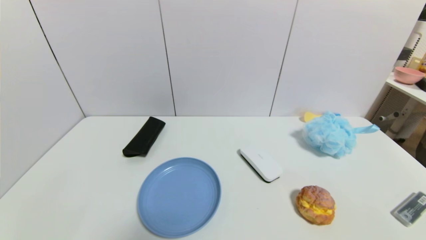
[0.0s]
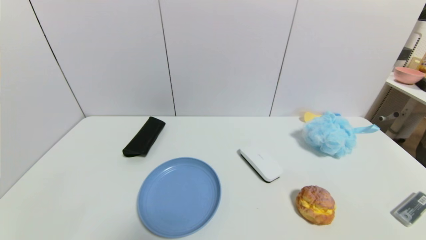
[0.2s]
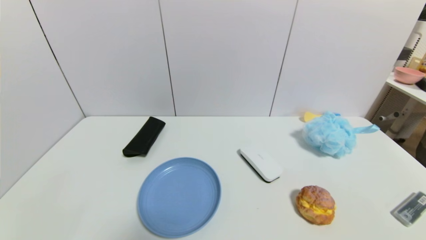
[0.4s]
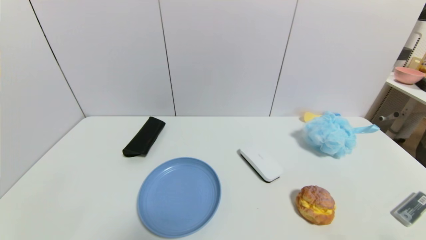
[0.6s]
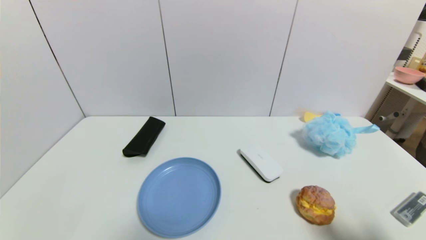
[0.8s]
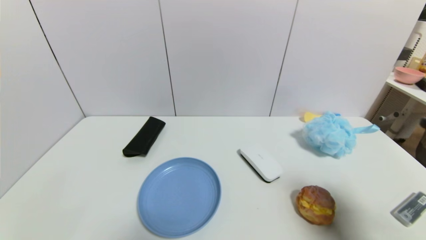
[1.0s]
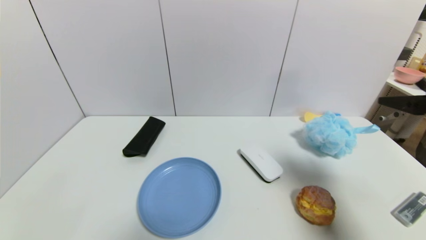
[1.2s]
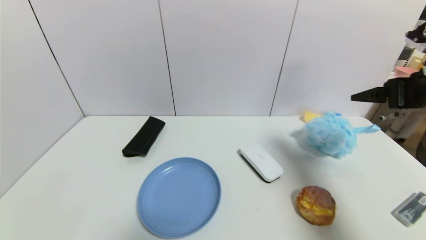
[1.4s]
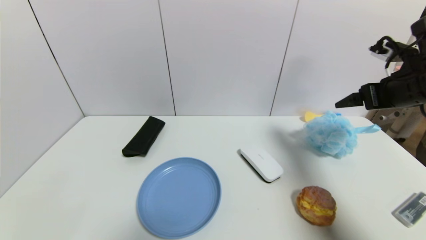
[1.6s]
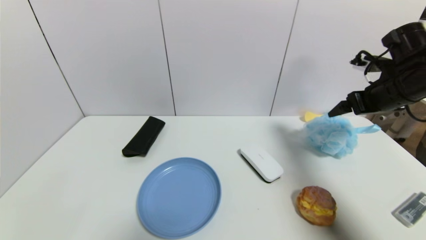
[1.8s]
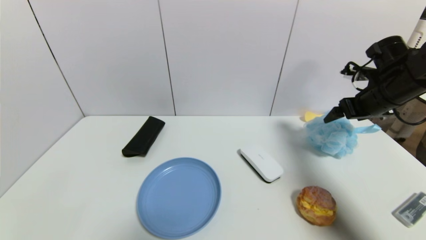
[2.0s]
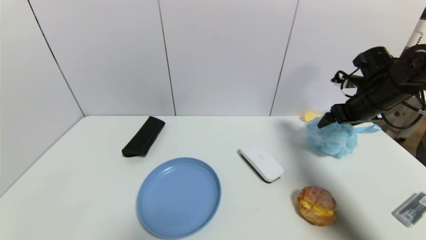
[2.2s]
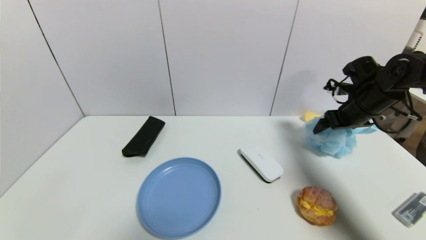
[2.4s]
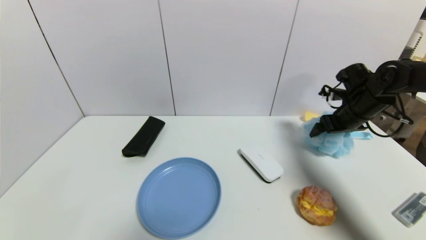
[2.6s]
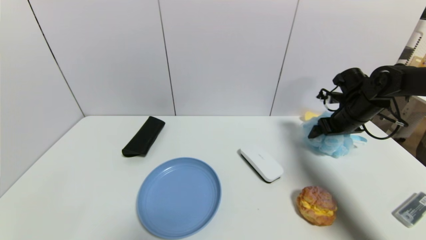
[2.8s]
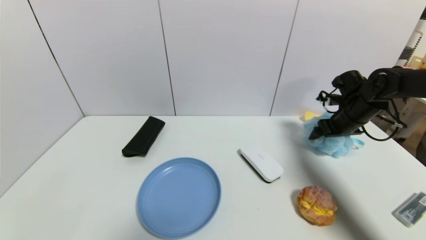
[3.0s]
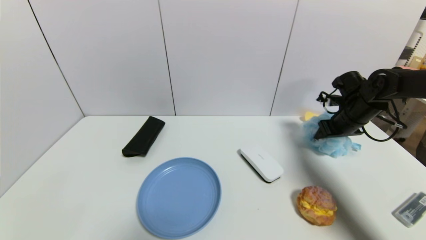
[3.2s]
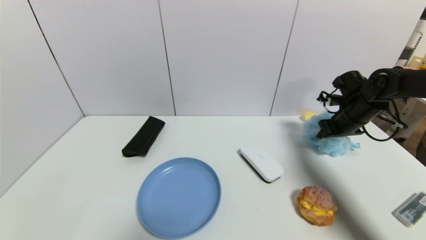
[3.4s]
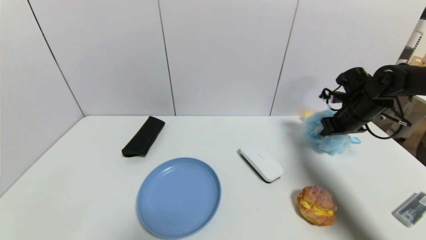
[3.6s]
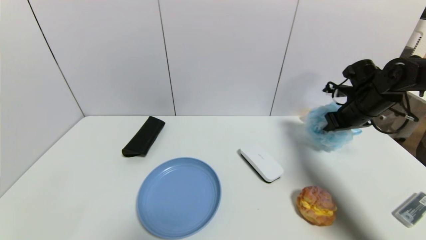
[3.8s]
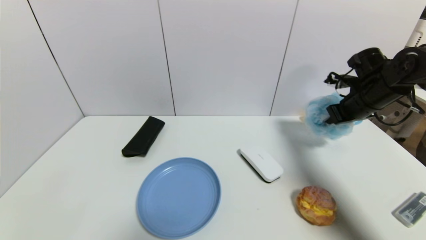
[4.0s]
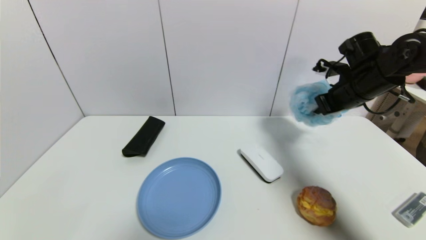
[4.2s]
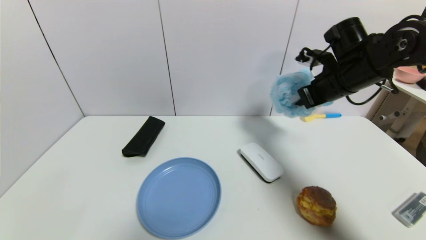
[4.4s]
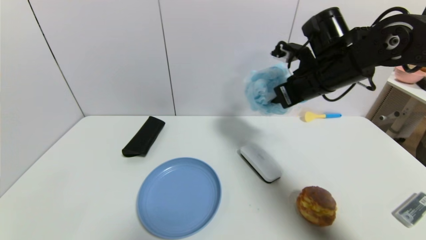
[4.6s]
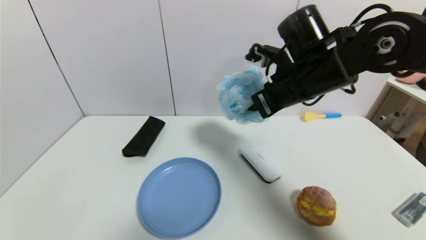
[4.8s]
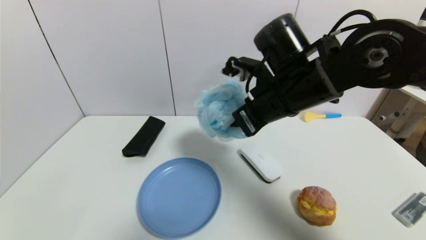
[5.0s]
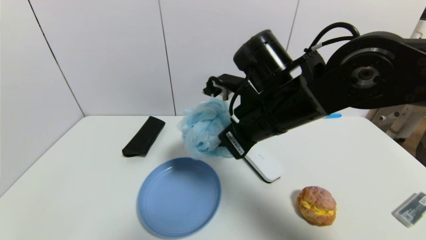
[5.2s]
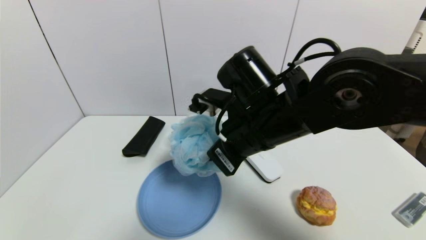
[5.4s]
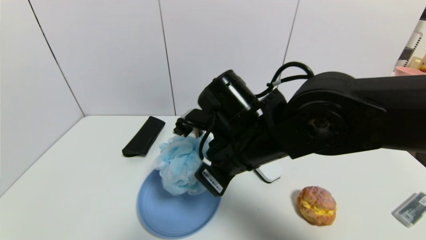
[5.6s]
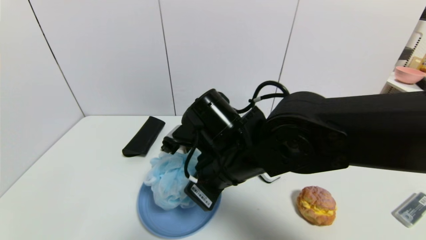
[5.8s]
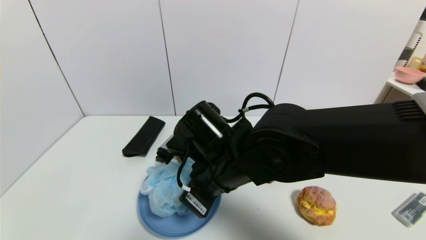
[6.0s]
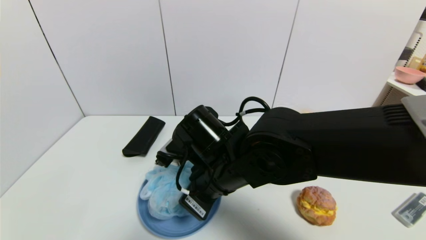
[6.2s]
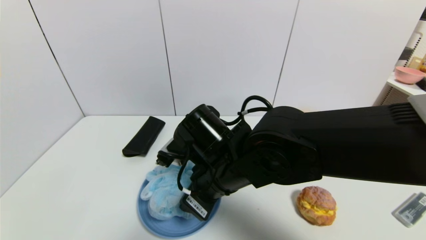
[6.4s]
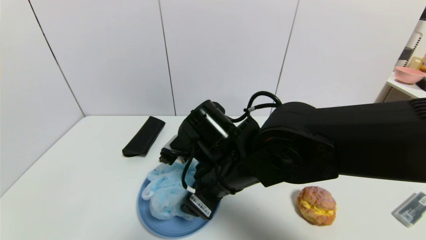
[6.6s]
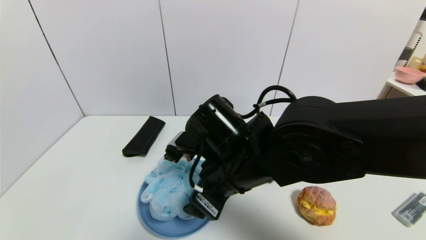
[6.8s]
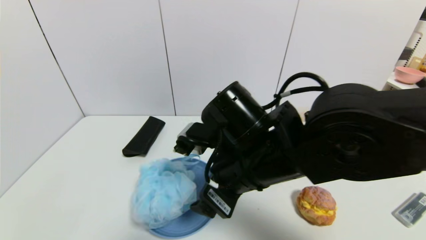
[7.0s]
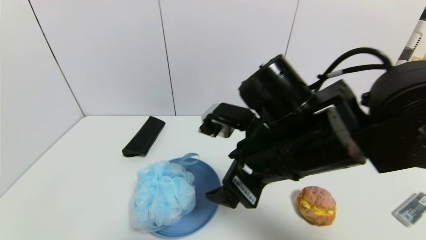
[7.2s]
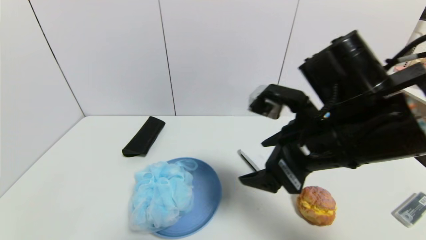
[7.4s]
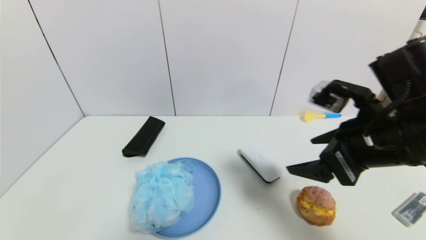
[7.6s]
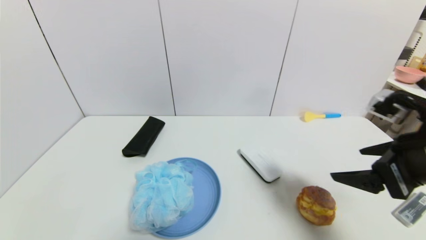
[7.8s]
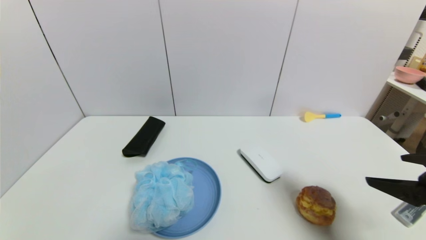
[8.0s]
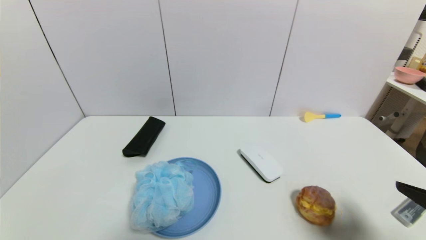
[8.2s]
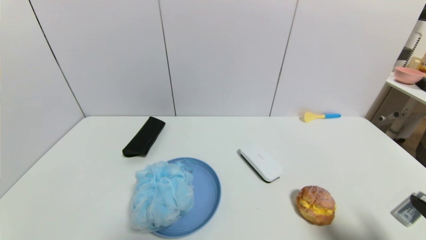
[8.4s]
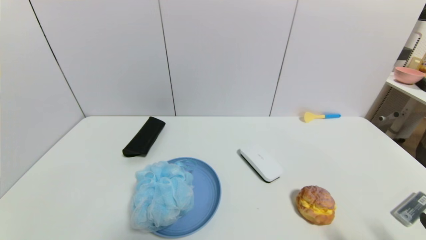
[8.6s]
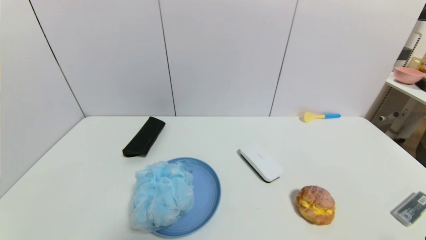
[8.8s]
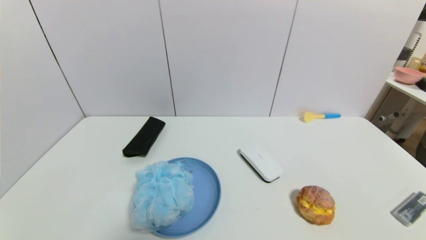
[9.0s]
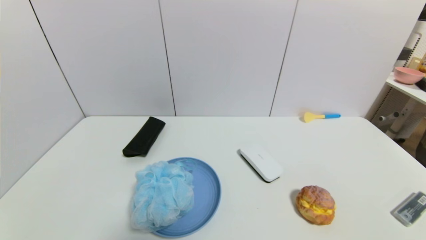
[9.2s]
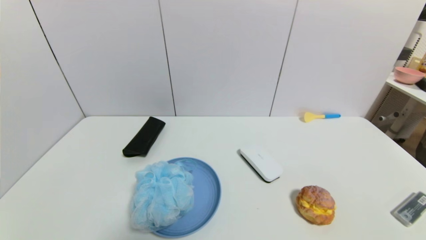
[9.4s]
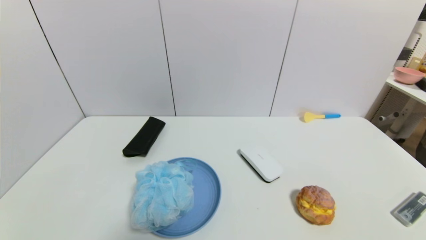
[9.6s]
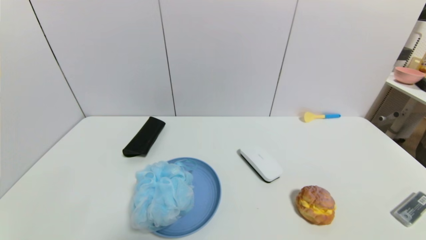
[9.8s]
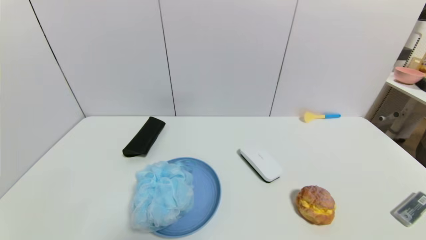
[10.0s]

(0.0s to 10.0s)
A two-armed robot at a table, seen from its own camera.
Task of the whole recording: use a gripper to pick the target object and place on the blue plate.
Step, 0.0s - 3.4s: Grasp the shower sphere with the right gripper.
Step, 3.6s - 7.2s: Place the shower sphere on the blue plate with the right gripper.
0.0s - 1.4s: The right gripper moves forward and upward, about 35 cm.
1.4s - 2.8s: The right gripper travels forward and downward by about 20 cm.
2.8s - 4.2s: The right gripper goes some 10 cm upward, and closes.
4.2s - 5.8s: The right gripper is displaced to the left and backward by roughly 30 cm.
5.8s - 7.2s: The right gripper is displaced to the right by roughly 5 cm, and opens up.
7.2s - 8.6s: The right gripper shifts some 30 cm to the right, backward and downward.

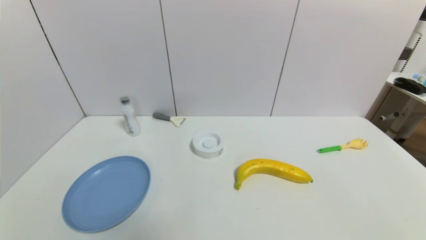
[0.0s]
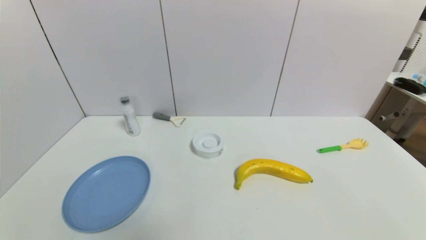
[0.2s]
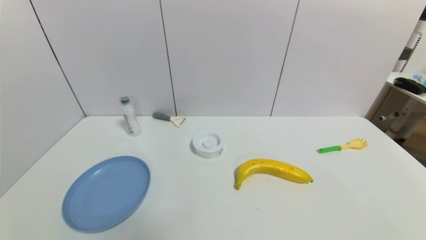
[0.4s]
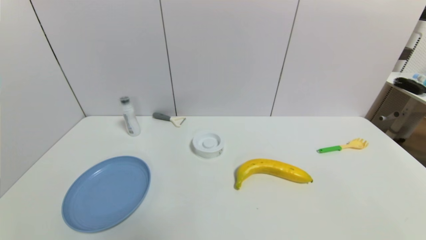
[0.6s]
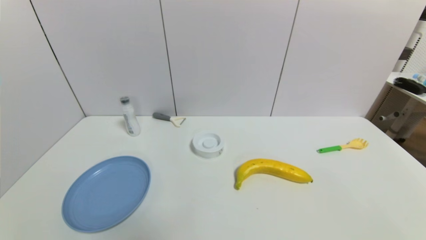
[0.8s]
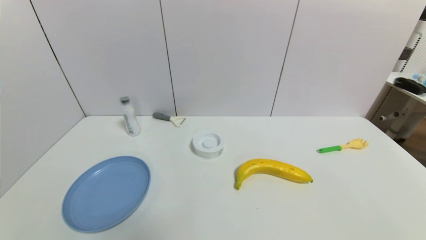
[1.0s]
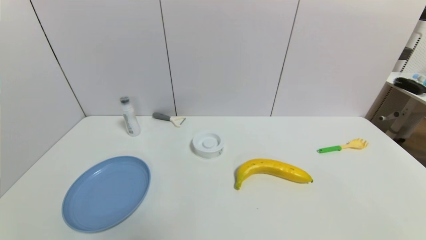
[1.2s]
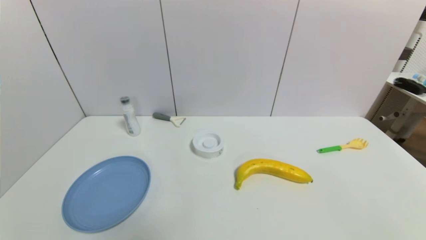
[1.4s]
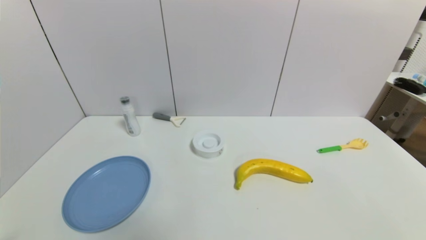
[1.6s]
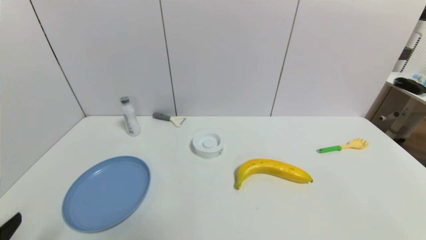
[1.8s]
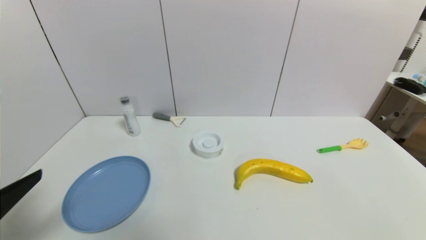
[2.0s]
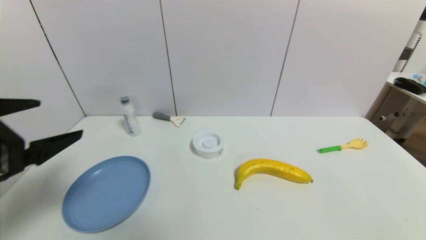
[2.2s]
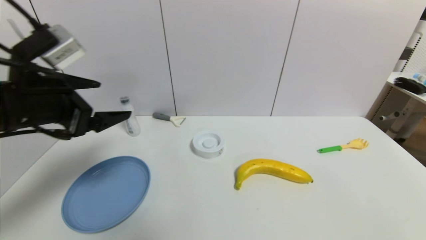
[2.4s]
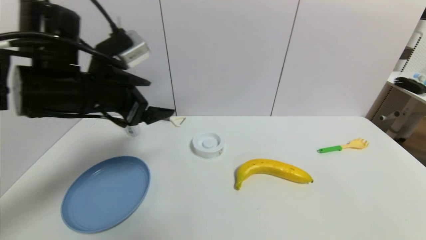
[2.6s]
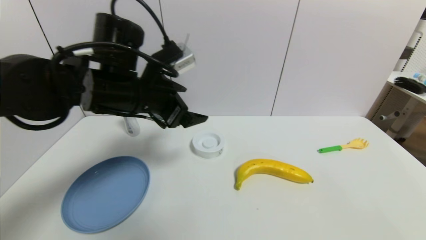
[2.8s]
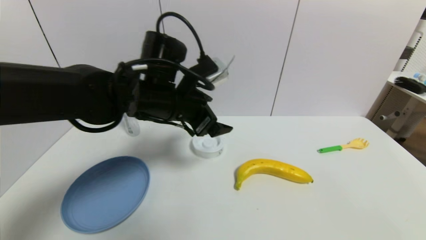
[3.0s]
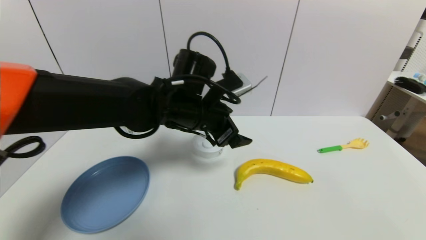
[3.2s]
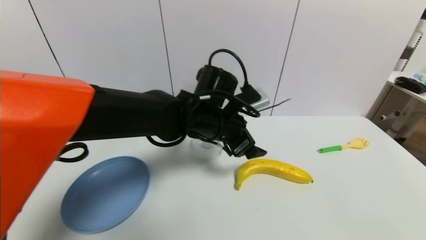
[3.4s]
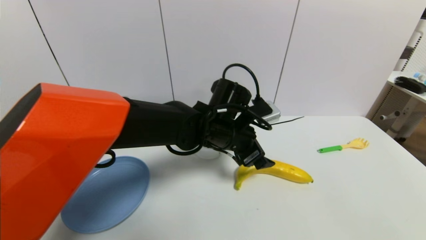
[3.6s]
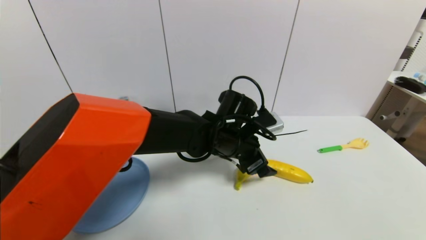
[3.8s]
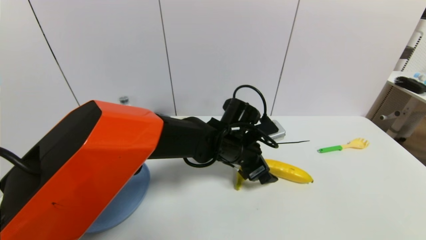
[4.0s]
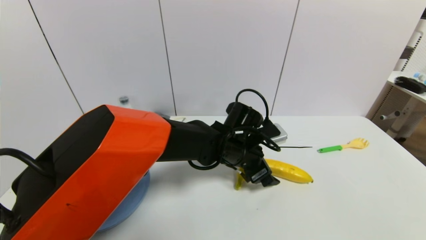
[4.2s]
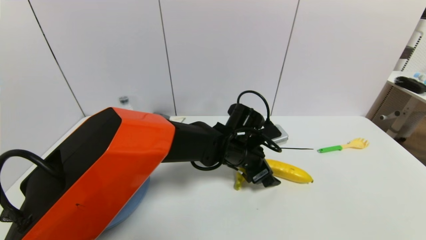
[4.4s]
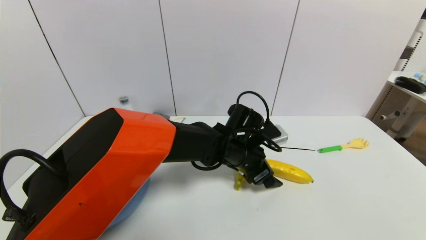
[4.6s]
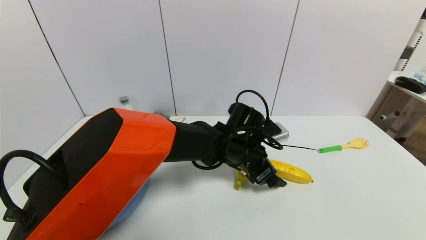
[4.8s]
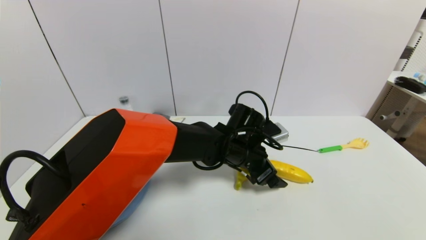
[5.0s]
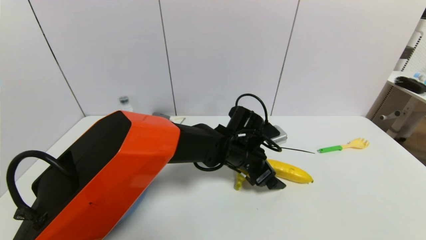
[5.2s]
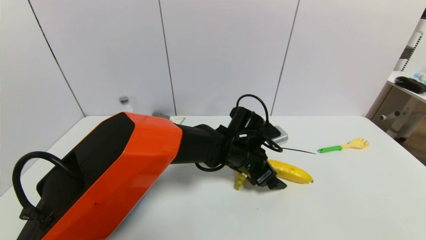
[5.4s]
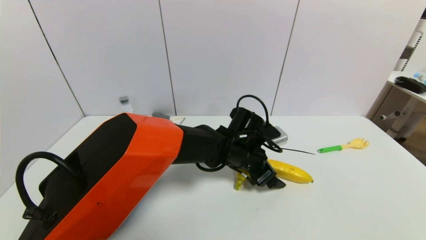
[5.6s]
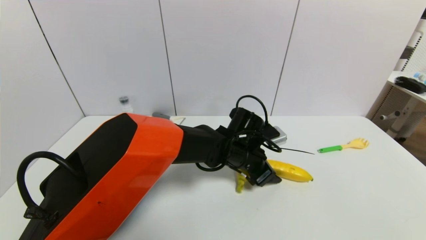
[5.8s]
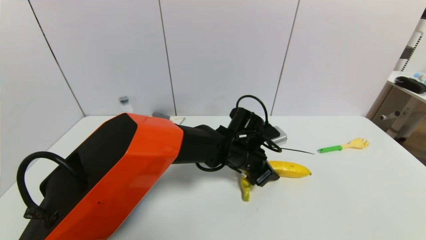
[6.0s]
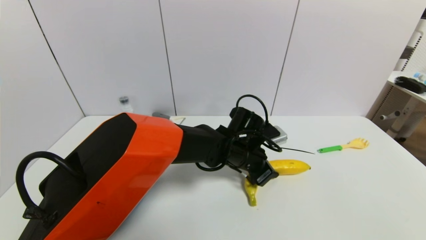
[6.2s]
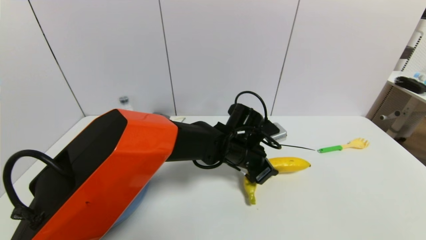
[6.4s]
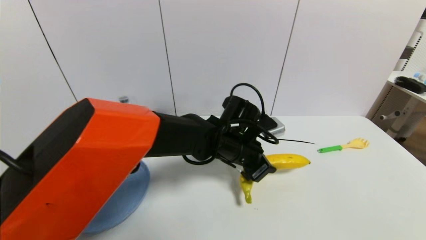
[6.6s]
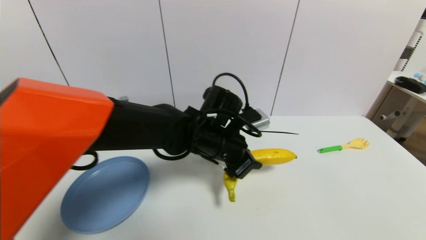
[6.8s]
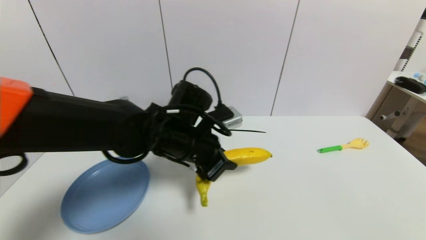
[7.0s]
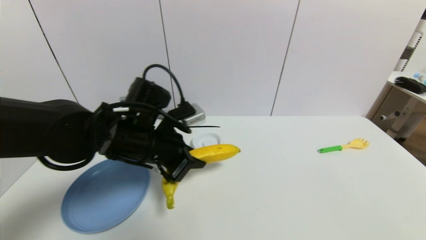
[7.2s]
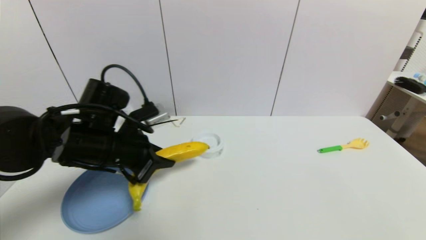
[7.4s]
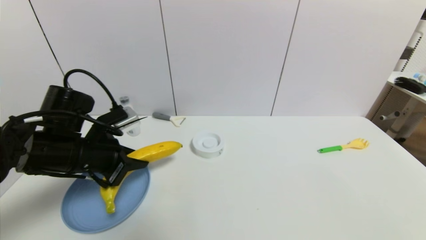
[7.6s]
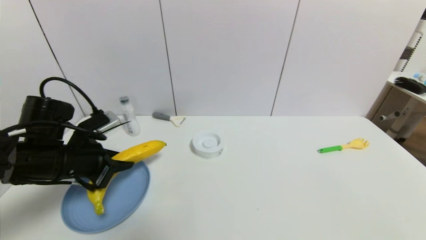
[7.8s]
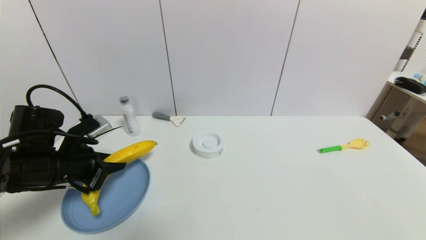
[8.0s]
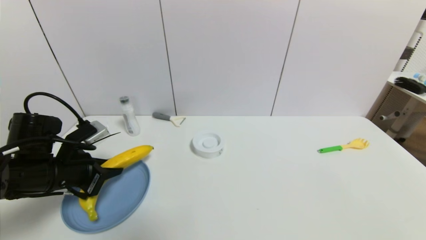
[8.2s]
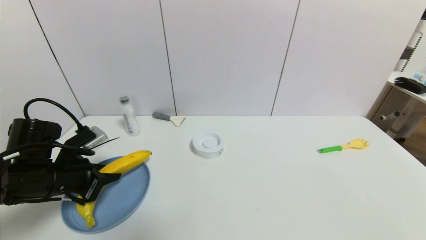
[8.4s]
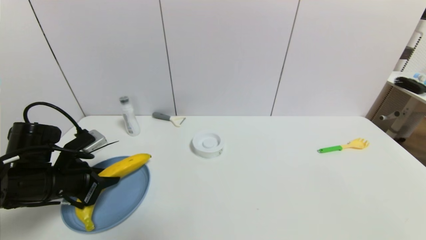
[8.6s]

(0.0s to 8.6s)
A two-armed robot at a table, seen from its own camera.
Task of the whole recording: use a gripper to pick the target object and place on the blue plate.
Step, 0.0s - 6.2s: Grasp the banana with the left gripper.
1.4s - 2.8s: The left gripper moves forward, upward and to the right, some 40 cm.
2.8s - 4.4s: The left gripper travels to the right and downward by approximately 25 cm.
4.4s - 5.8s: The left gripper closes.
5.8s - 7.2s: The left gripper travels to the left and upward by roughly 20 cm, and closes its fingers.
7.2s - 8.6s: The left gripper is displaced to the left by some 15 cm.
